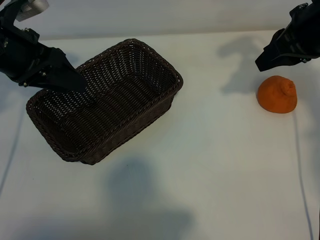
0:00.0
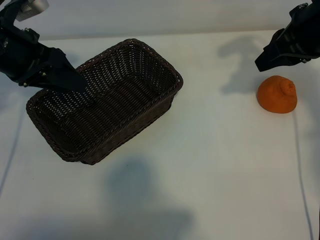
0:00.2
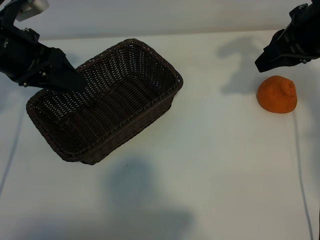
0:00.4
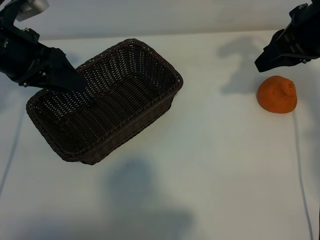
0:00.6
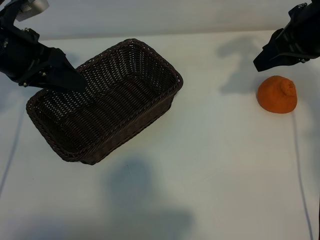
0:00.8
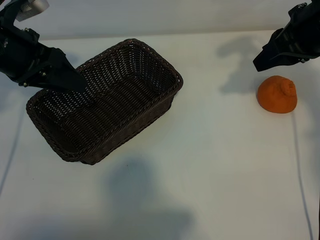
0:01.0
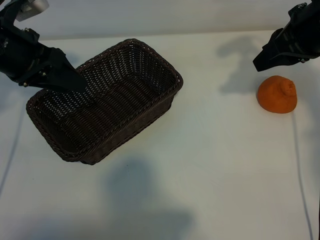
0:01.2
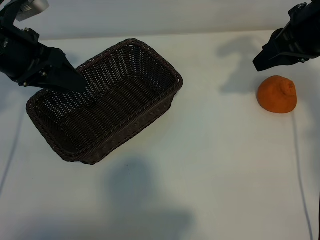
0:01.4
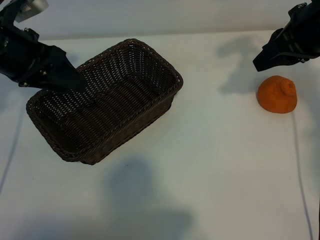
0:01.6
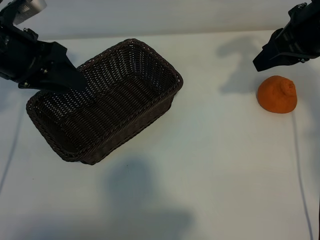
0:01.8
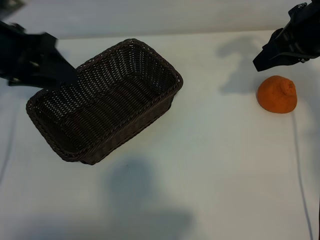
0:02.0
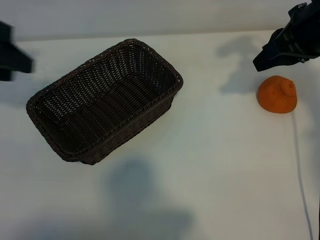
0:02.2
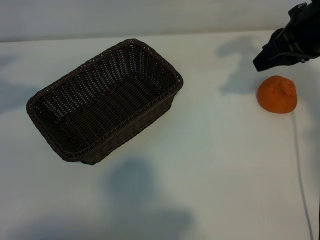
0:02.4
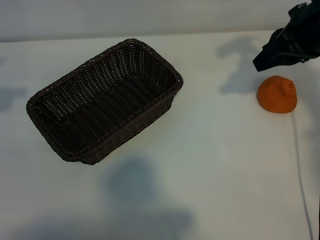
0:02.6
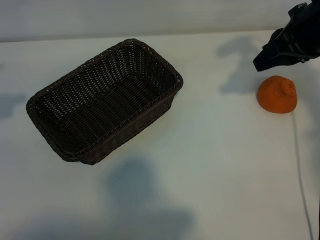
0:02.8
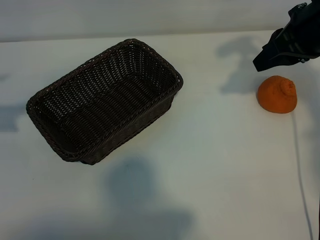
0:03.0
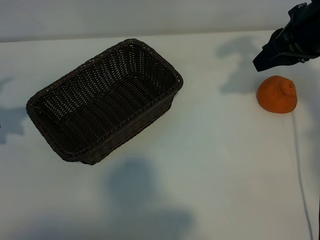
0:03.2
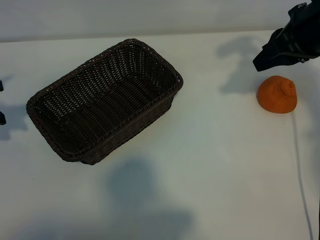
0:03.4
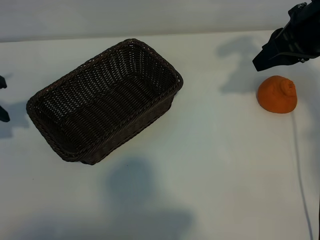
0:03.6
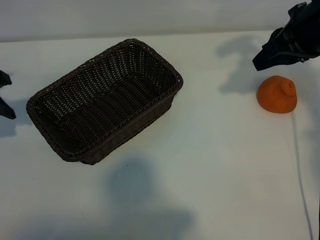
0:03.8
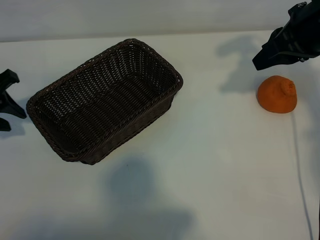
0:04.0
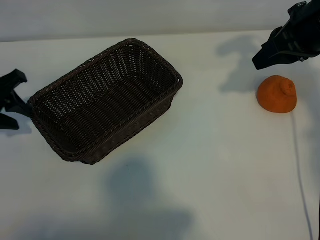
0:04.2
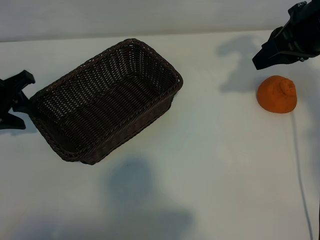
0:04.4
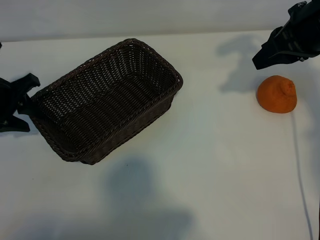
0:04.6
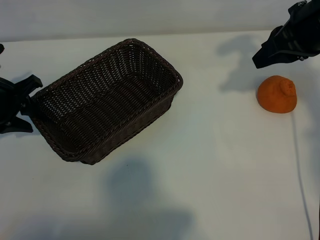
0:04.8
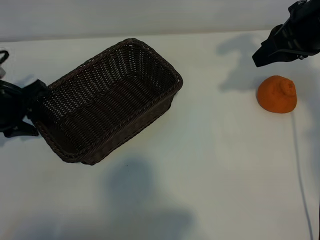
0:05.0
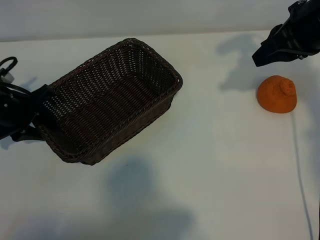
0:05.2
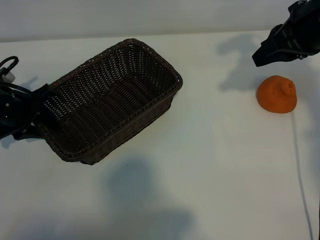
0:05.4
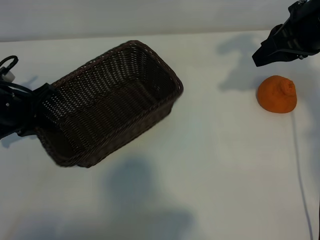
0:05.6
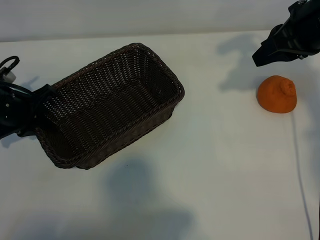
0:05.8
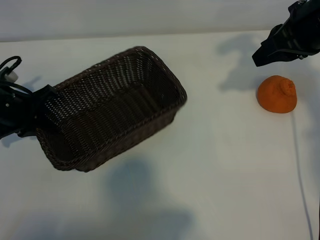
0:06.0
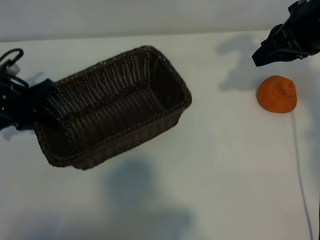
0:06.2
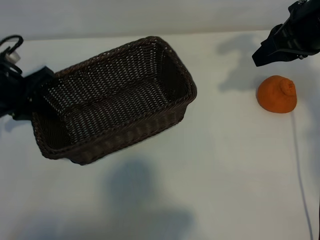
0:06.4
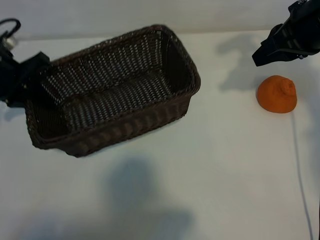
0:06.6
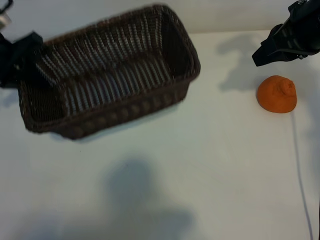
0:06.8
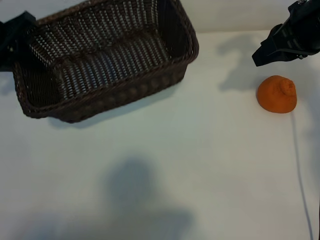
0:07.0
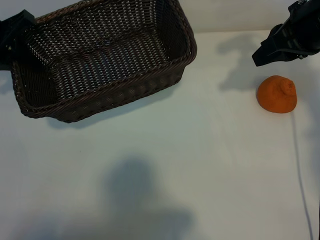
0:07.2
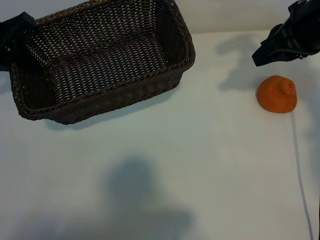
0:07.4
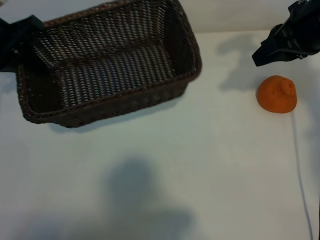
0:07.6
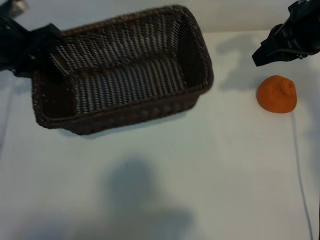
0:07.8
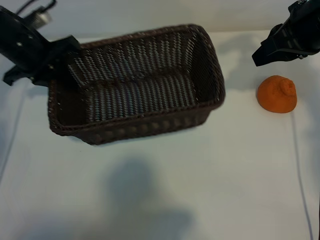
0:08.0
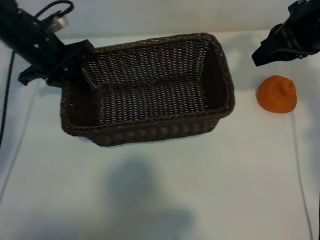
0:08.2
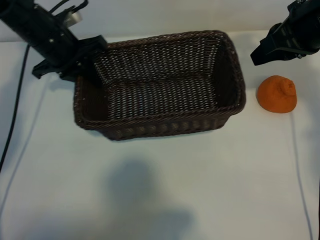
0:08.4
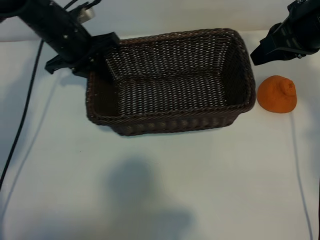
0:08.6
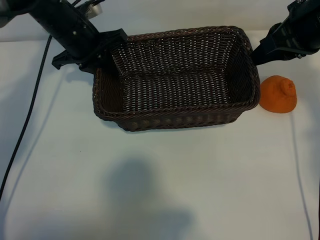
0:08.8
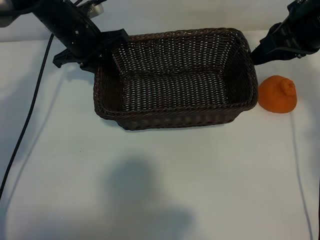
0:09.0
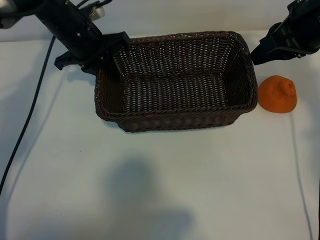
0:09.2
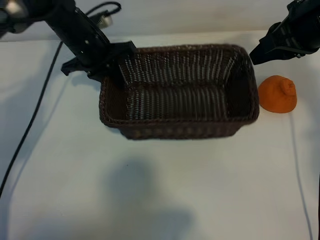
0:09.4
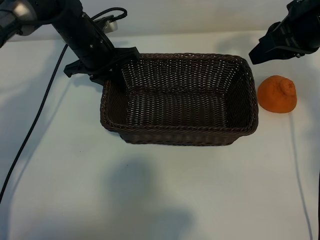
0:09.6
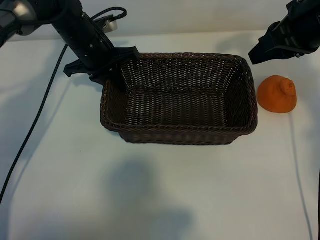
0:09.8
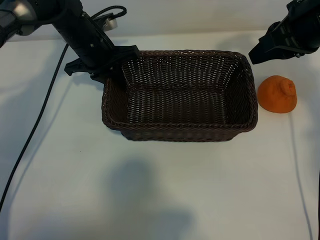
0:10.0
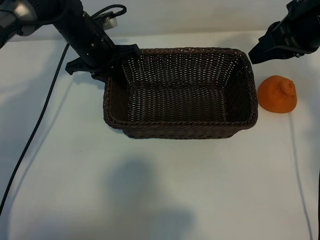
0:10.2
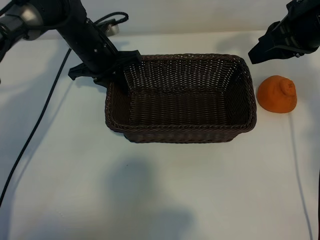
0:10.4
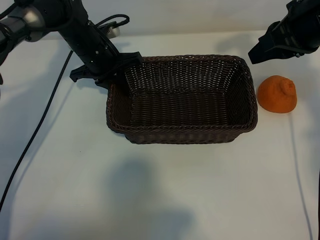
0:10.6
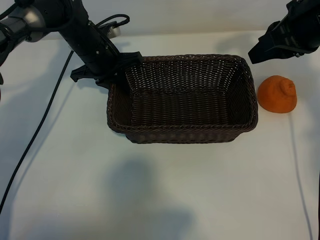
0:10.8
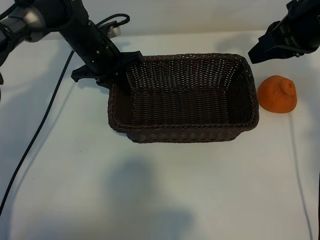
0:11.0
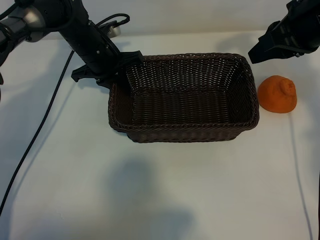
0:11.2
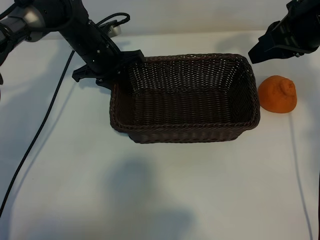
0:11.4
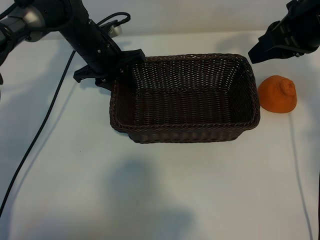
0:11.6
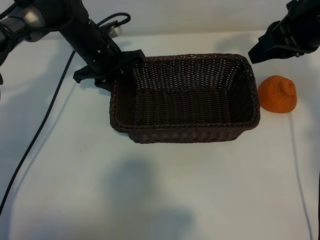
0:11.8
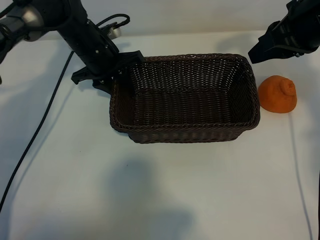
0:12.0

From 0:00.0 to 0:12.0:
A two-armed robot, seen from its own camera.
Task of the whole recording: pick up the orange and put it into the basket.
Step, from 0:00.0 to 0:05.6: Grasp the basket with left gripper.
Step, from 0:06.0 to 0:11.6: Place the basket in the center of view with left gripper.

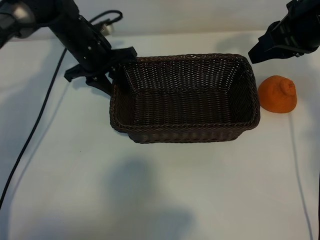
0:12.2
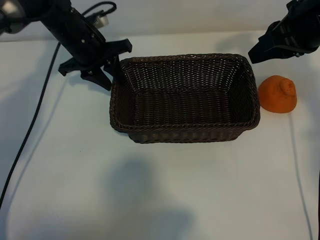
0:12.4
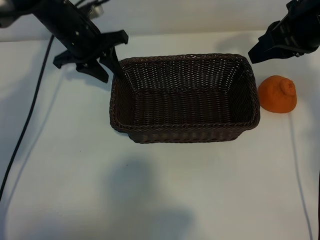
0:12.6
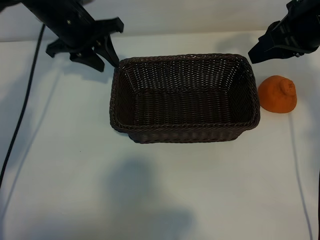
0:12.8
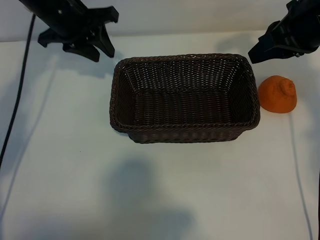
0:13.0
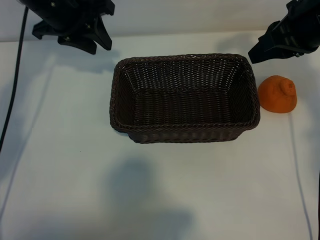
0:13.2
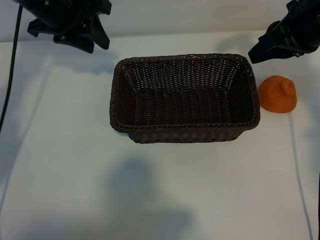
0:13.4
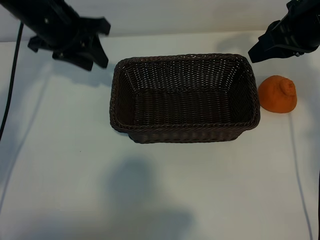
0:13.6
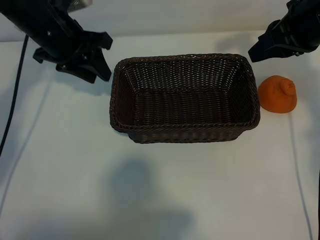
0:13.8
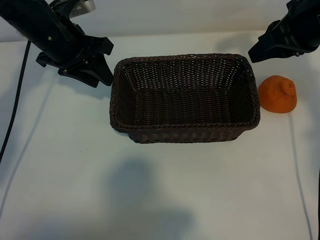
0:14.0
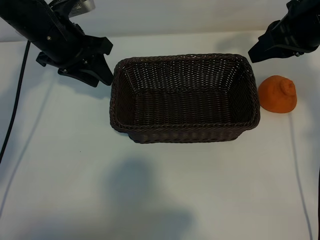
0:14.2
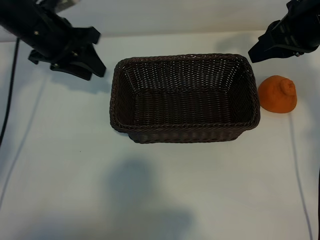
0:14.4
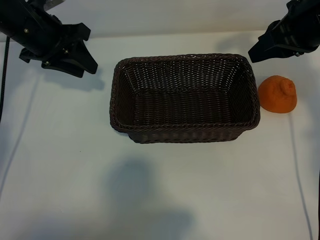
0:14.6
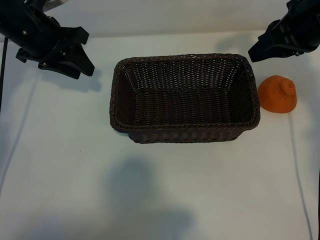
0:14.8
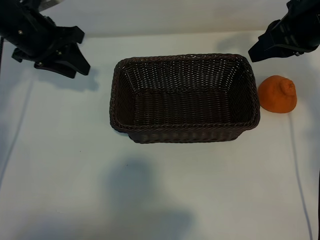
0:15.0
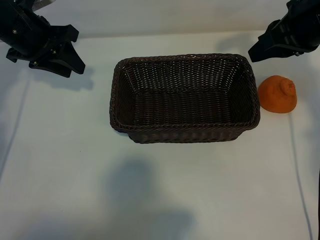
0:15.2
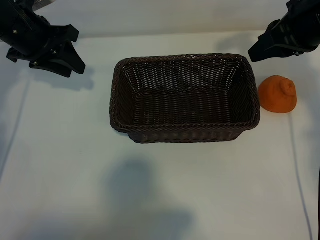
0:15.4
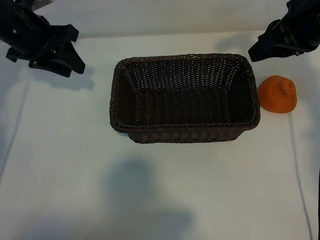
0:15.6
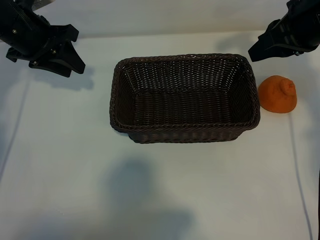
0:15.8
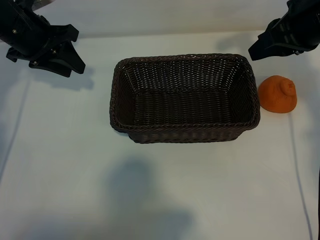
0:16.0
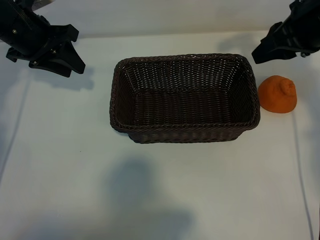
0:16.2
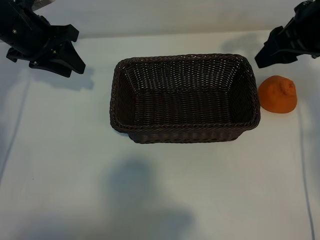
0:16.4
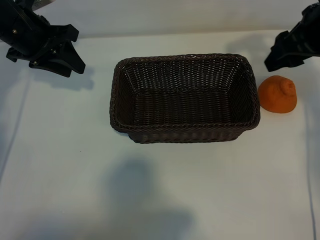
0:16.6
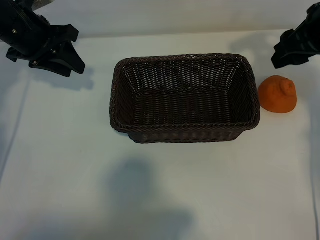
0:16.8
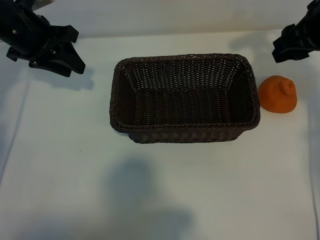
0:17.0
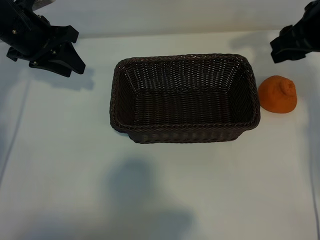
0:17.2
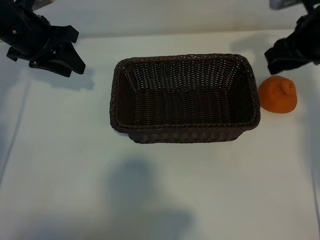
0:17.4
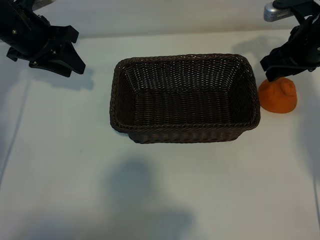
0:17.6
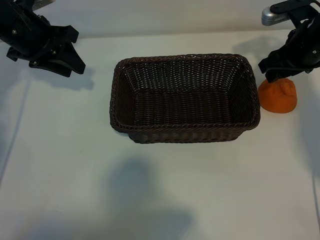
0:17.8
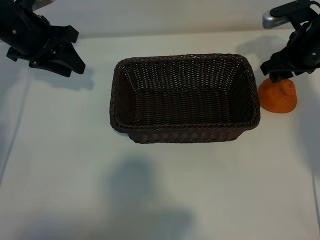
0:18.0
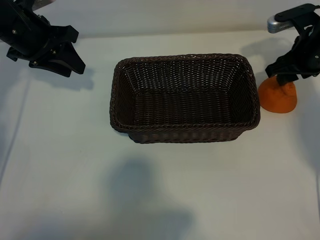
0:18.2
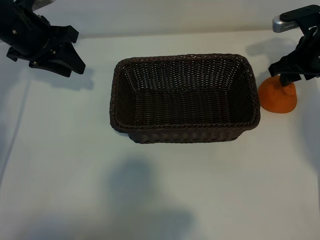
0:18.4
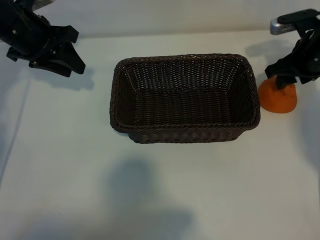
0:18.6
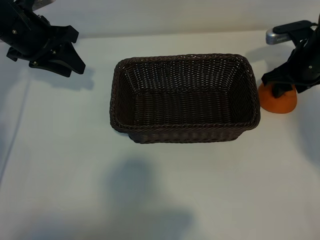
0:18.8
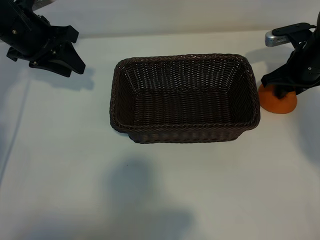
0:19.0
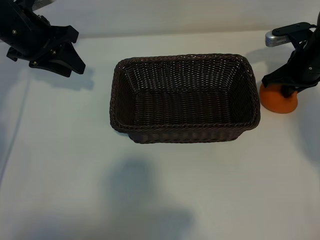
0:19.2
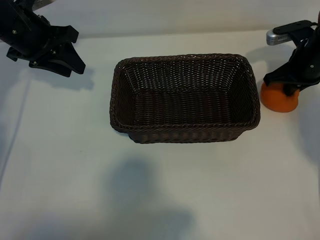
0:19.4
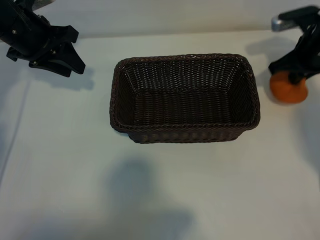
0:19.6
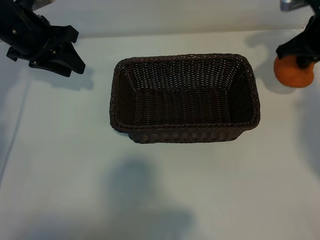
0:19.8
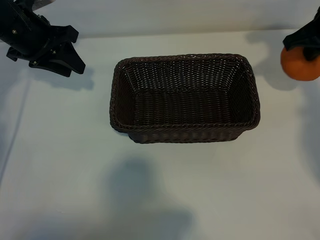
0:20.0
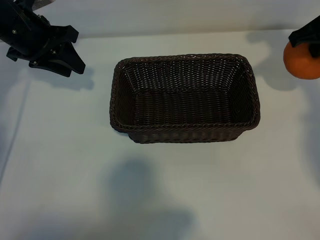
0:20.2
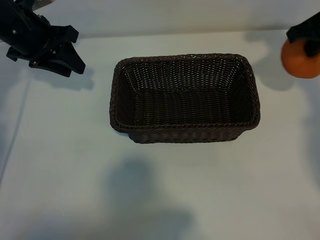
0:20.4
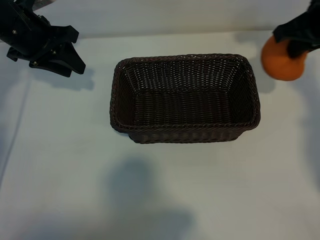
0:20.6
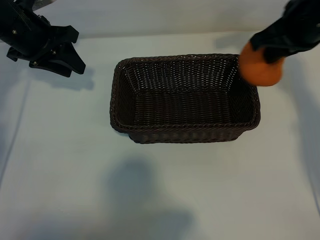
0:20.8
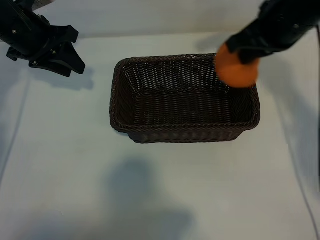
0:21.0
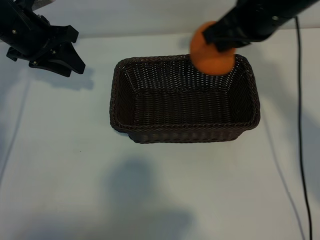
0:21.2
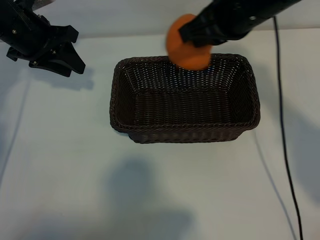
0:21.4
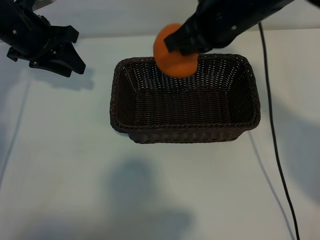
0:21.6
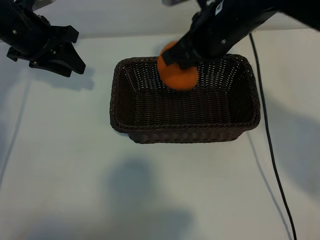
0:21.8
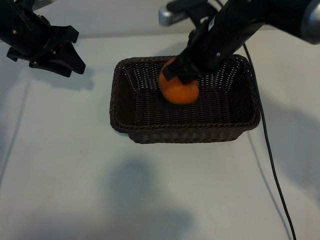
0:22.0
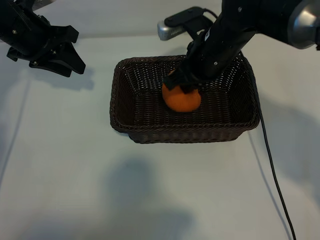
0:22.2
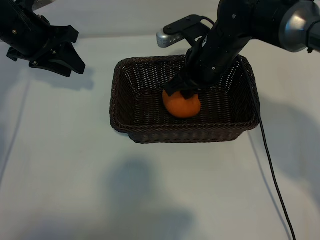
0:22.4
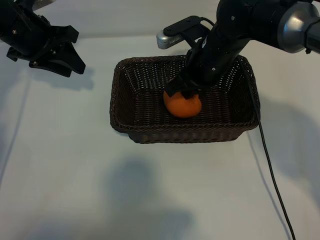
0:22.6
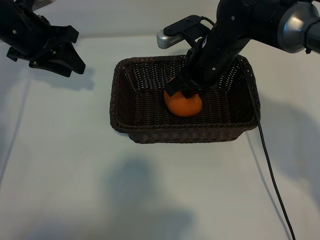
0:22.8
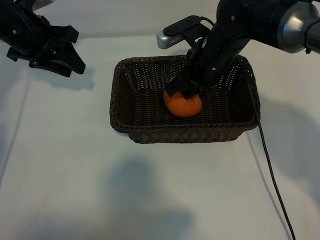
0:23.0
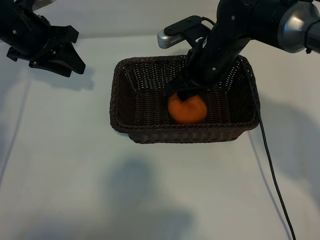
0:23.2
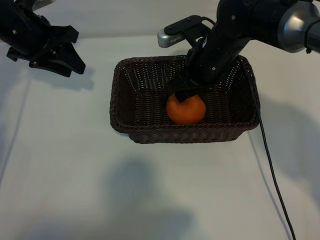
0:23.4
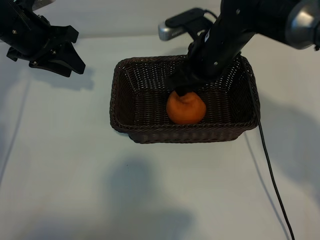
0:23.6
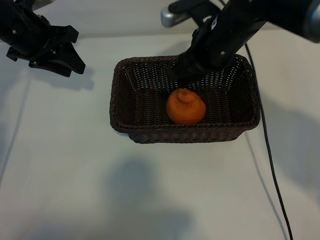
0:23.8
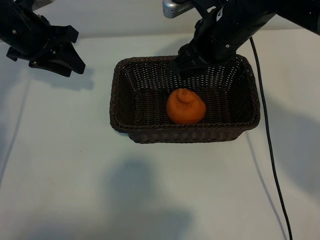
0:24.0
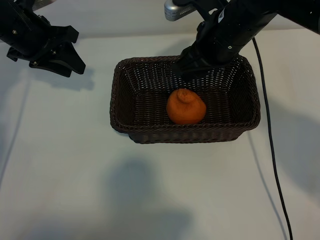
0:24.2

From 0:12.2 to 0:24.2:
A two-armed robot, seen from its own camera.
Task of the whole recording: pick up the orange and put it into the basket.
Step, from 0:12.2 to 0:19.4: Grasp the orange with right gripper.
Step, from 0:19.6 to 0:23.4: Place the orange in the basket with right gripper.
